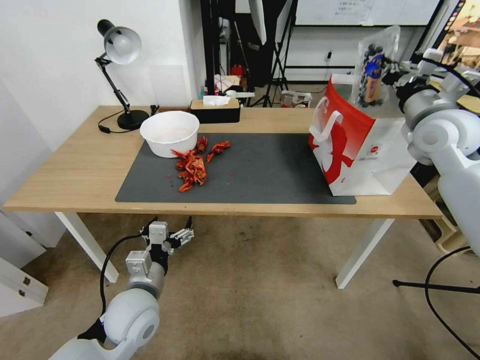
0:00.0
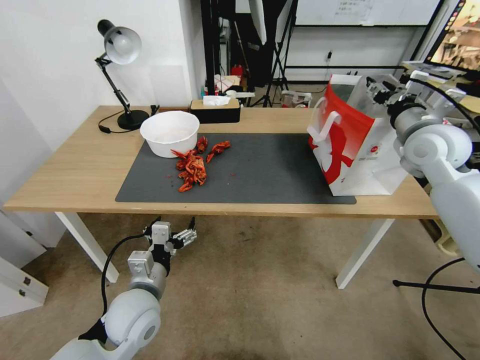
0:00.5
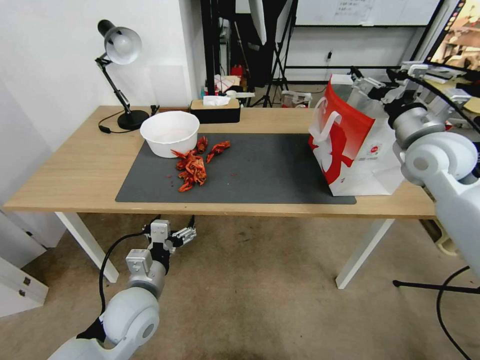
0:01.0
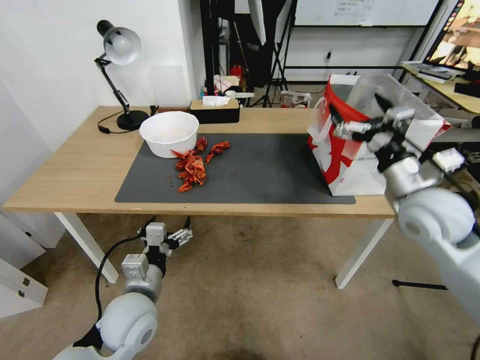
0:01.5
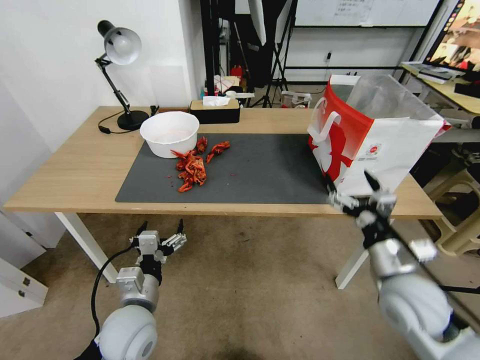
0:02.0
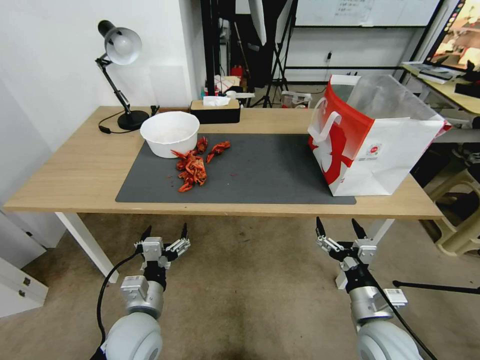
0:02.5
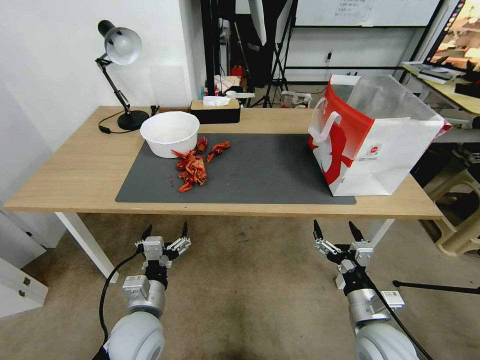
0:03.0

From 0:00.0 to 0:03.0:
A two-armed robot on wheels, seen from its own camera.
Task of the whole recording: Close the takeout container lid, then place the container into the takeout bag.
From 0:00.0 to 0:01.5: The right gripper heads backward and downward, covering approximately 15 cm, and opens.
From 0:01.5 to 0:03.0: The right gripper travels downward and backward by approximately 25 cm.

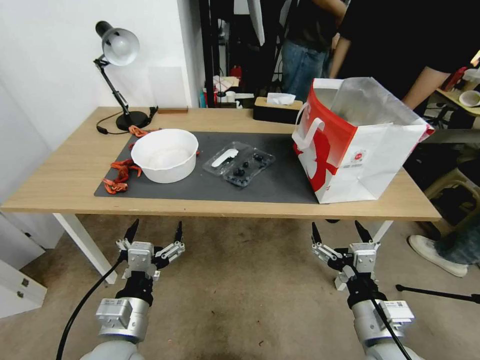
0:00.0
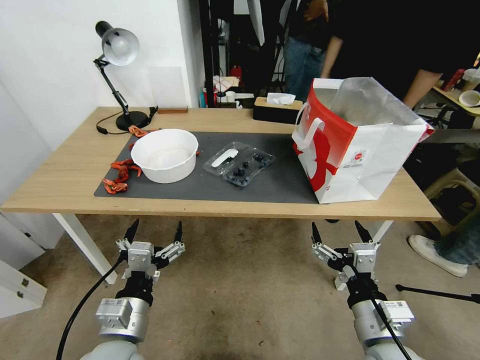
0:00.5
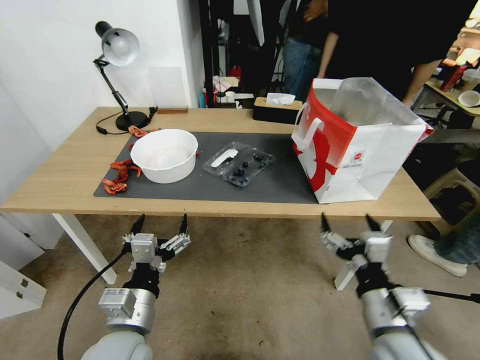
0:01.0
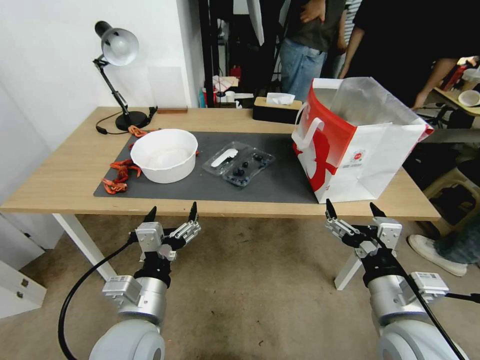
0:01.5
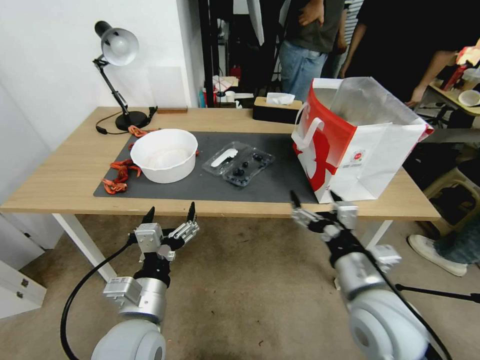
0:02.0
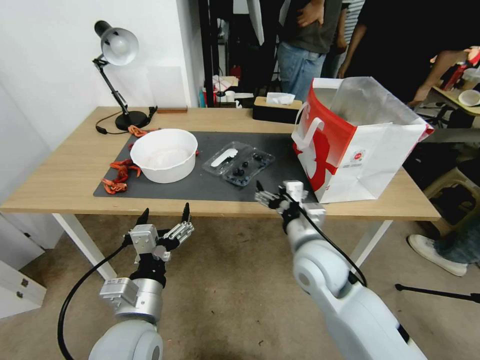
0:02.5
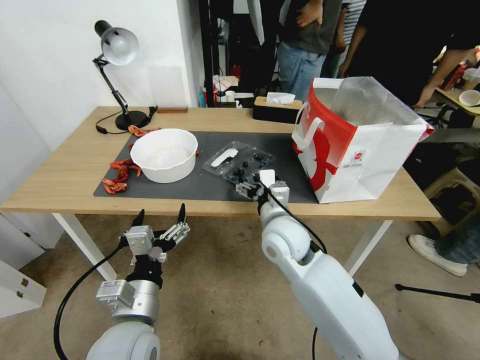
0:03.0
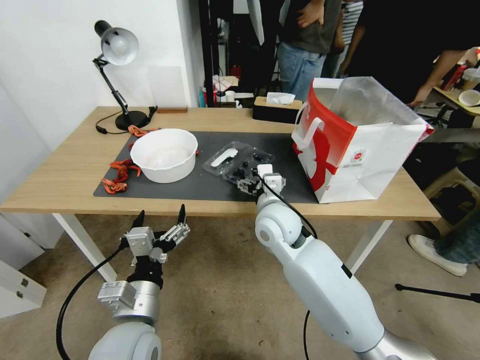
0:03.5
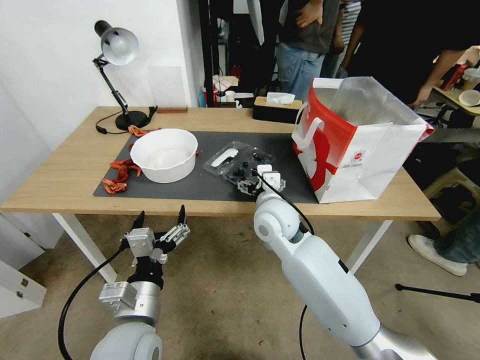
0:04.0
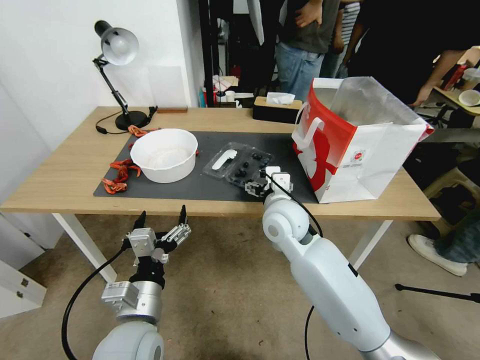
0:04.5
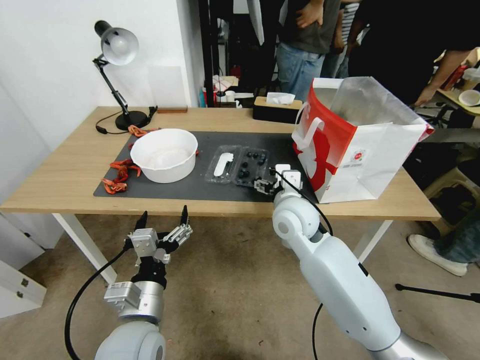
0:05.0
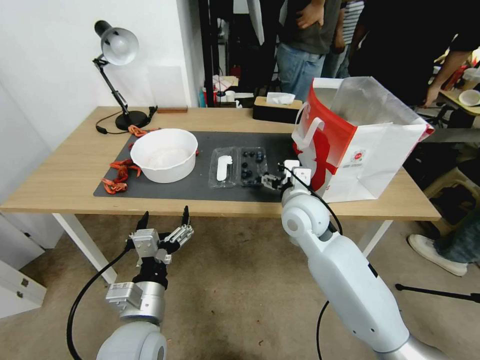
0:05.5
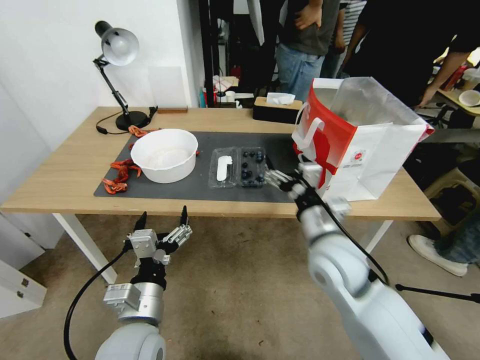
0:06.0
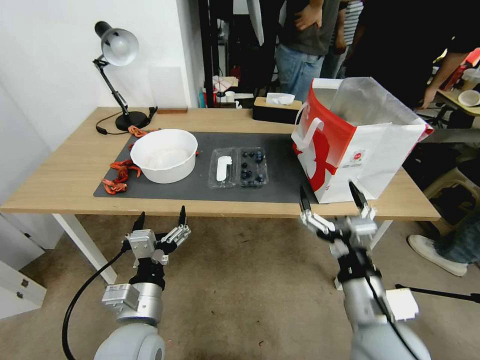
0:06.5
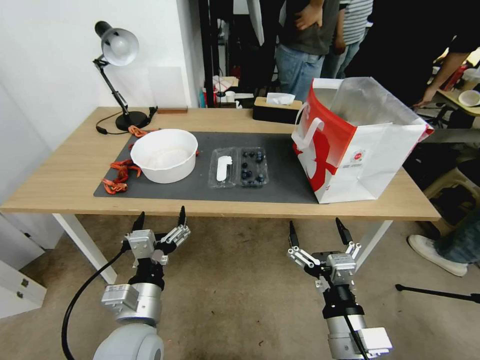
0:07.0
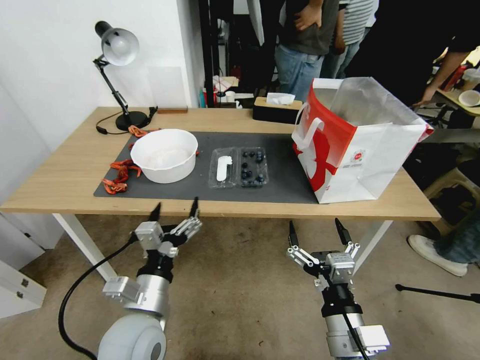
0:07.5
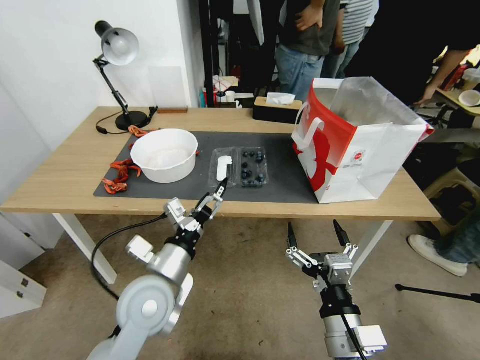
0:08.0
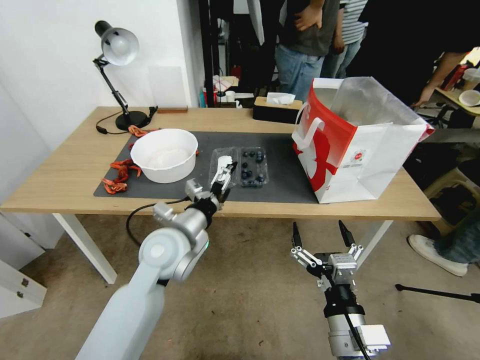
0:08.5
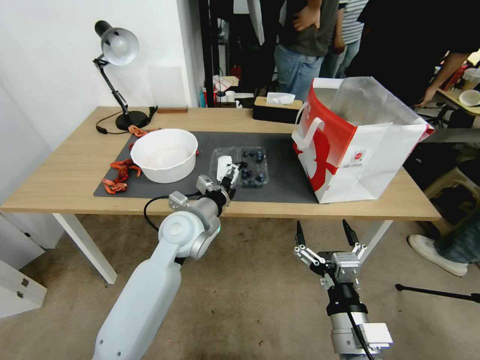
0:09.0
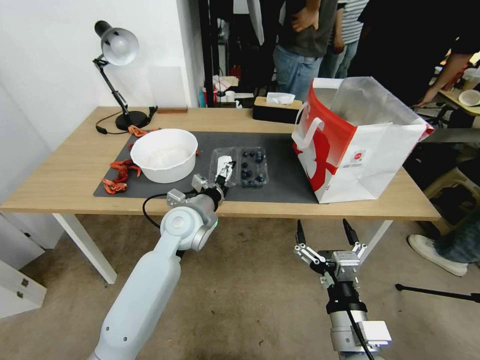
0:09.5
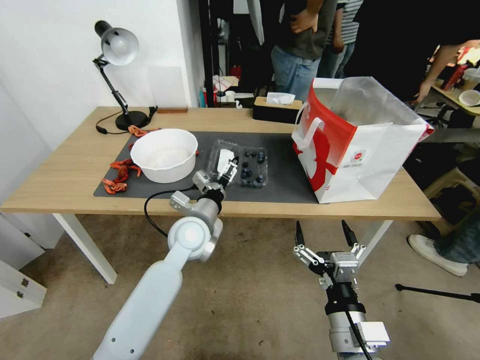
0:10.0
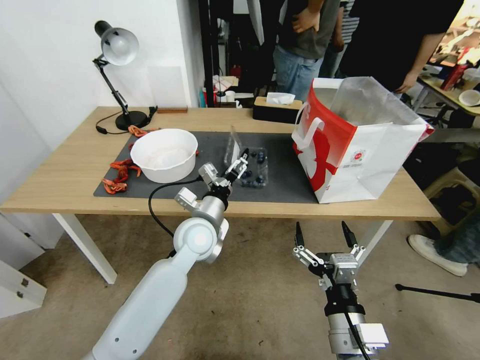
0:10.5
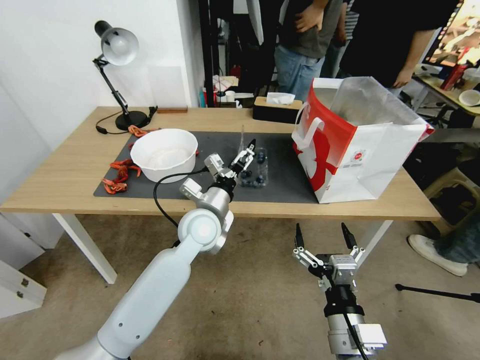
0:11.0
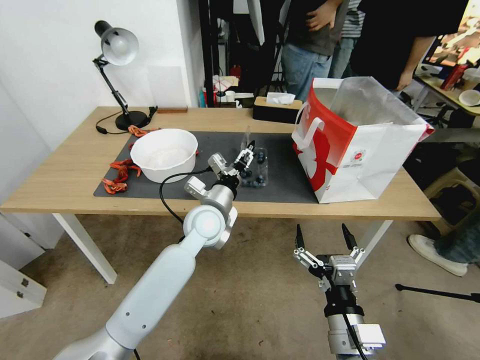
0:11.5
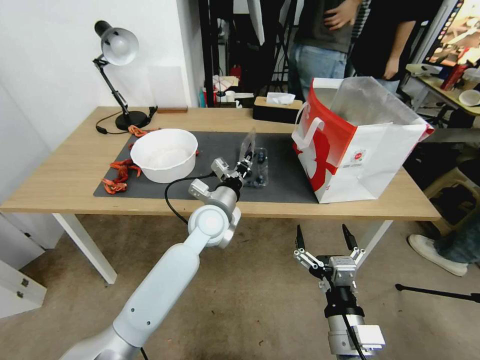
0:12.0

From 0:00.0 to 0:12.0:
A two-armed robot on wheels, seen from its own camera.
Task of the whole recording: Close the takeout container lid, then place the container into the takeout bag.
From 0:02.0 to 0:04.0: The right gripper heads forward and to the left, covering roughly 25 cm.
From 0:04.0 to 0:06.0: The right gripper is displaced to the right and backward by approximately 15 cm.
From 0:06.0 to 0:08.0: The right gripper heads backward, covering roughly 20 cm. Meanwhile the left gripper heads forward, covering some 5 cm.
From 0:08.0 to 0:10.0: The left gripper travels forward by some 15 cm.
From 0:10.0 to 0:12.0: The left gripper closes its fingers.

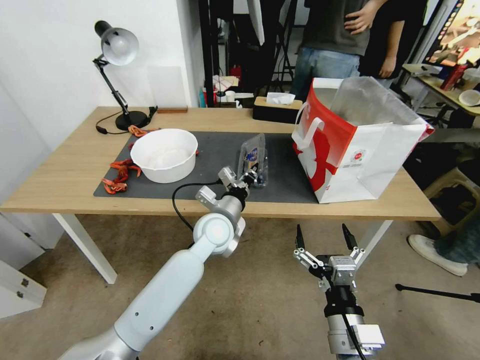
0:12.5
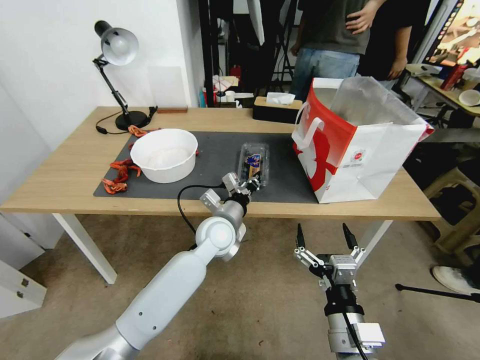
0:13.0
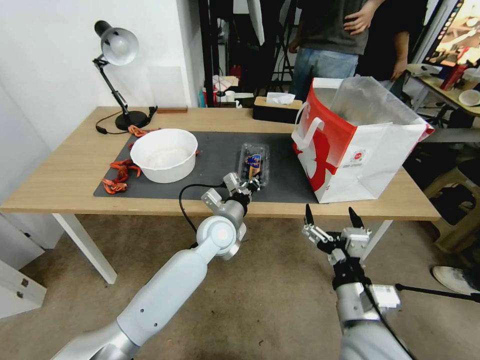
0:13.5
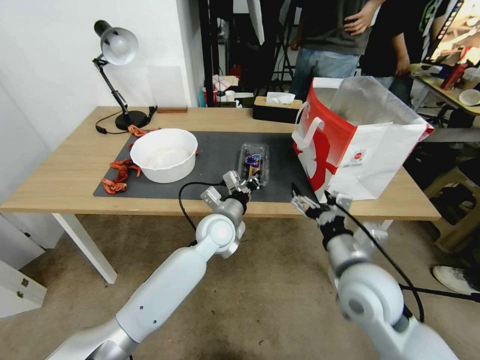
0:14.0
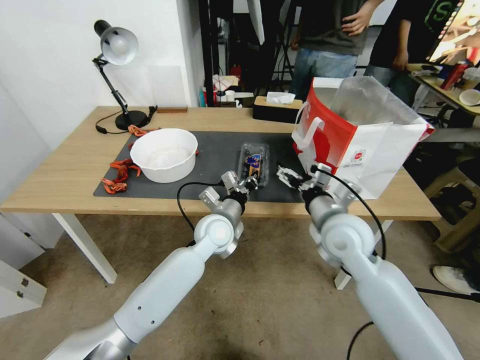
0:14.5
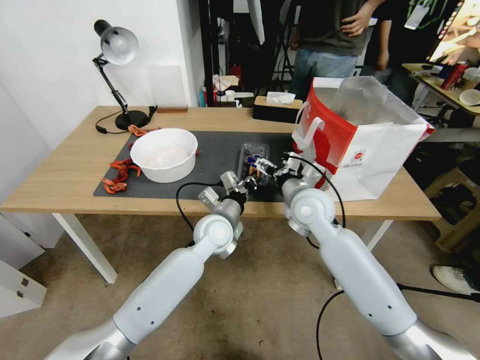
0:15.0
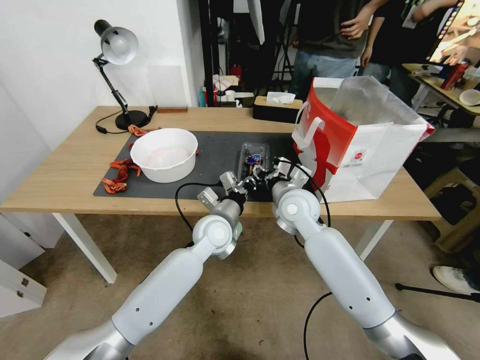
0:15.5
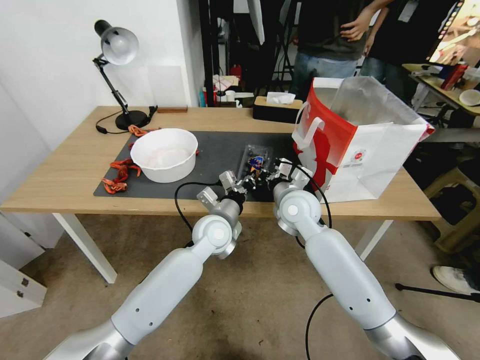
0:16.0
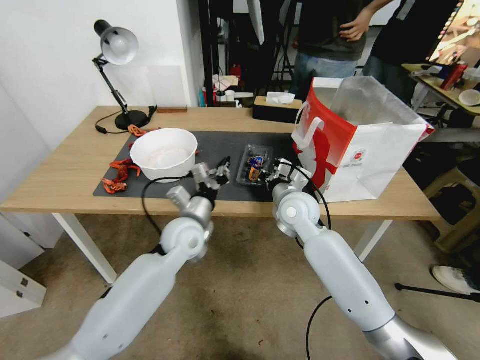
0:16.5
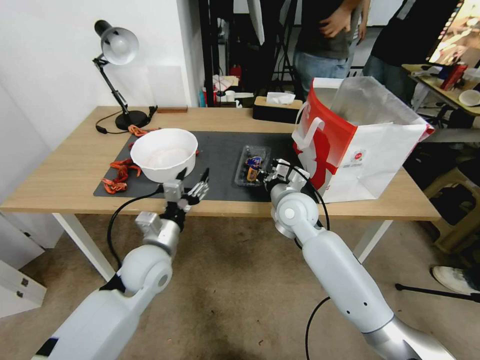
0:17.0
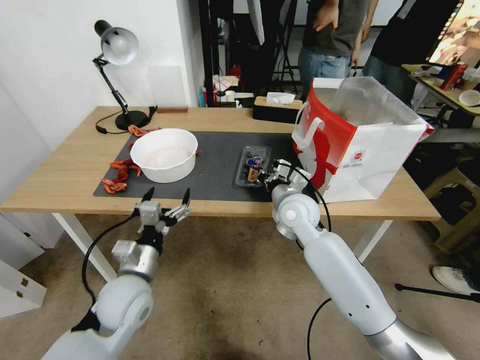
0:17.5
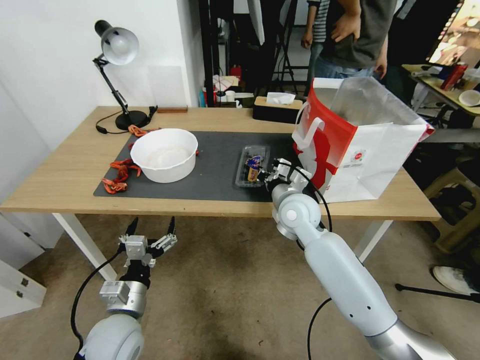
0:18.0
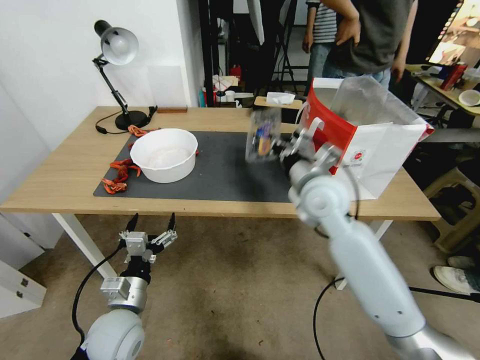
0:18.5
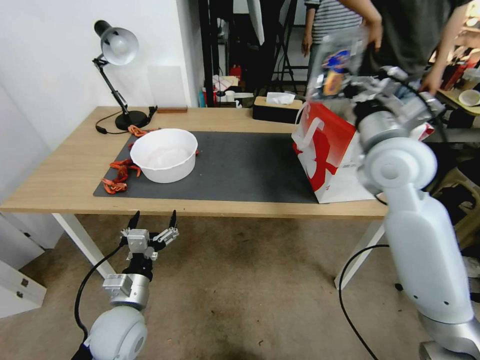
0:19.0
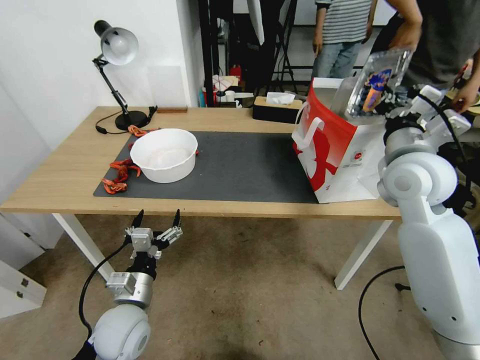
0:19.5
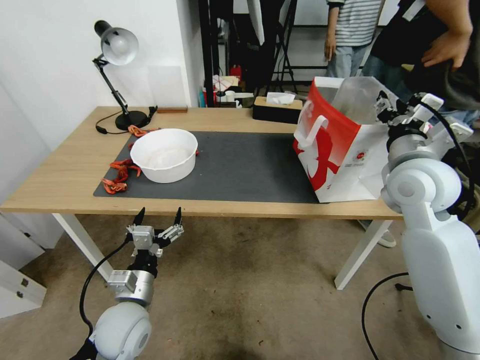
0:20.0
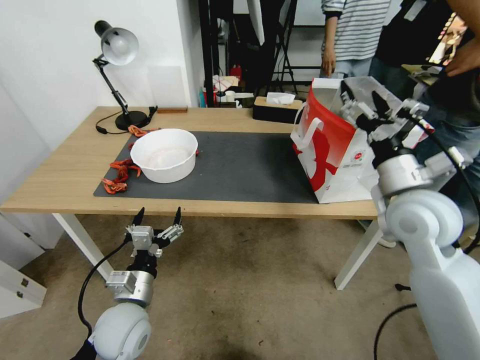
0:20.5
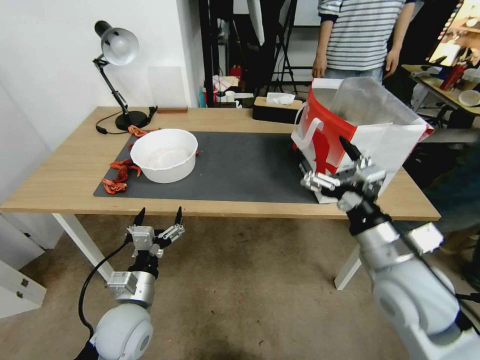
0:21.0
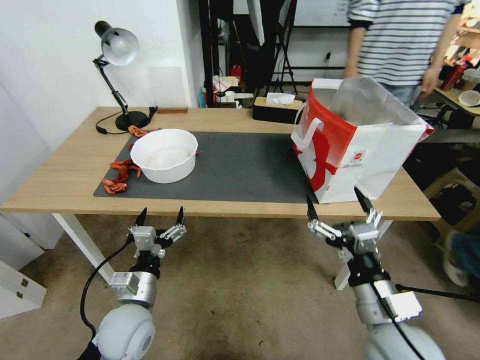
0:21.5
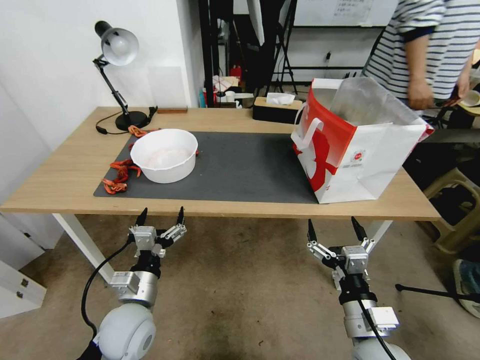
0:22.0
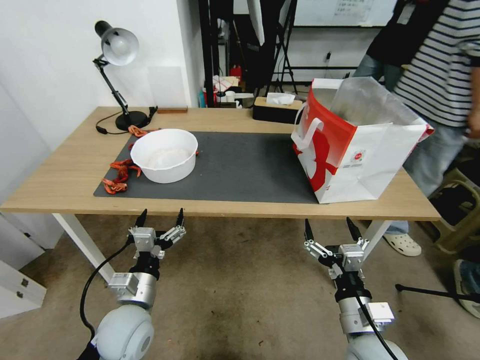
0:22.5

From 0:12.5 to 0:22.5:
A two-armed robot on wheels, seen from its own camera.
Task of the whole recording: Close the takeout container lid, then place the container into the takeout bag.
From 0:12.5 to 0:14.5: The right gripper is displaced forward and upward by approximately 25 cm.
From 0:14.5 to 0:16.5: The left gripper goes about 5 cm to the left. Meanwhile the right gripper is displaced forward and to the left by some 10 cm, and closes.
From 0:16.5 to 0:18.5: The left gripper is displaced backward and to the left by about 20 cm, and opens. Meanwhile the right gripper heads upward, covering roughly 10 cm.
From 0:18.5 to 0:20.5: The right gripper travels to the right and backward by some 15 cm, and opens.
From 0:20.5 to 0:22.5: The right gripper travels downward and backward by some 25 cm.
